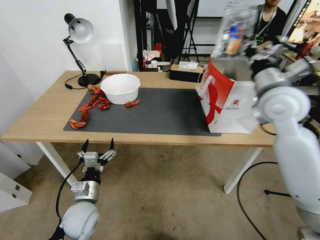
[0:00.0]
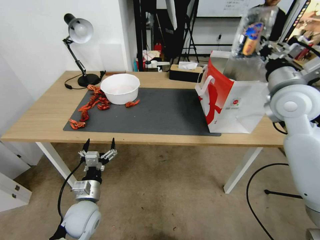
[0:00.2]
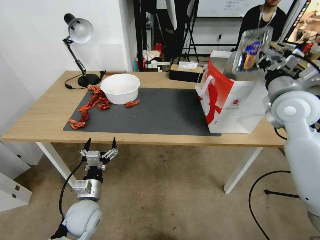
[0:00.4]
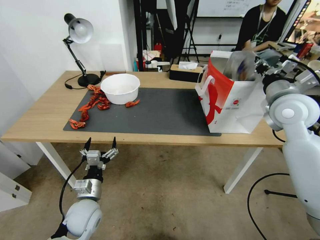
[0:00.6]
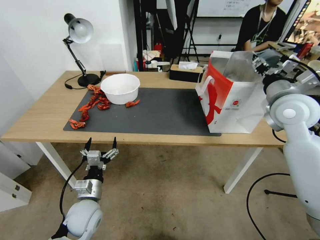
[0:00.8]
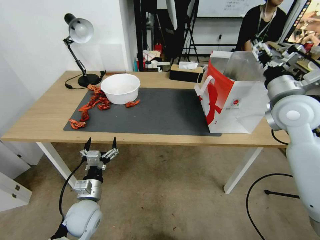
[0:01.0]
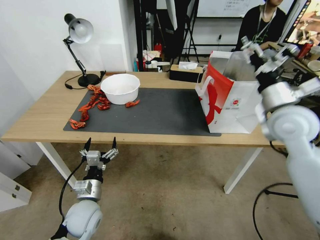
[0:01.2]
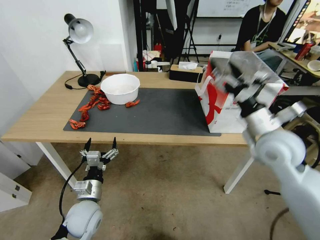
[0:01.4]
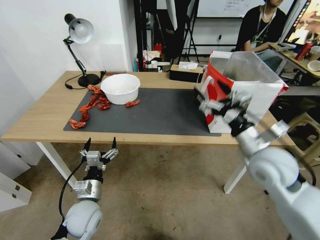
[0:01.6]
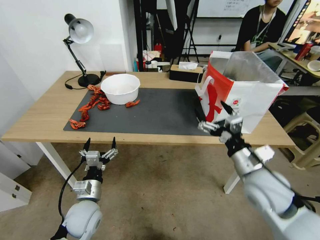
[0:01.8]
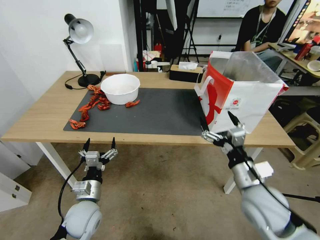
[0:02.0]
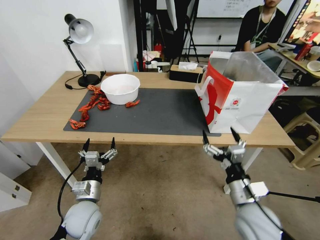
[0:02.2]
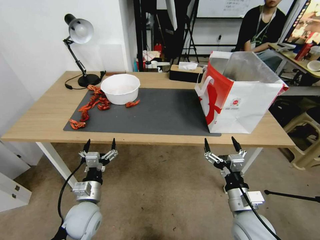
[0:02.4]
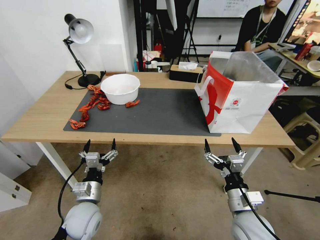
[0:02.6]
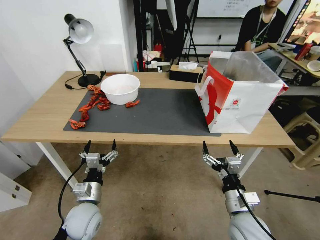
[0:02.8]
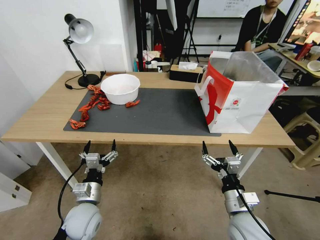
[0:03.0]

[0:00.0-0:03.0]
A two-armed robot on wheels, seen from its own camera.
Task of the whole recording: Close the takeout container lid, then place the container into the takeout bag.
0:00.0 to 0:01.6: The right gripper heads downward and backward, covering roughly 15 cm, and opens its fingers.
0:01.6 to 0:03.0: The right gripper shifts approximately 20 cm downward and backward.
